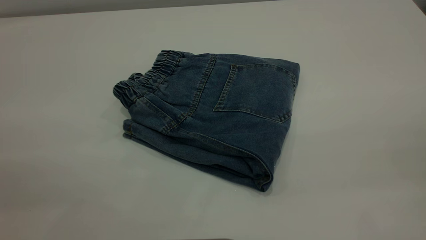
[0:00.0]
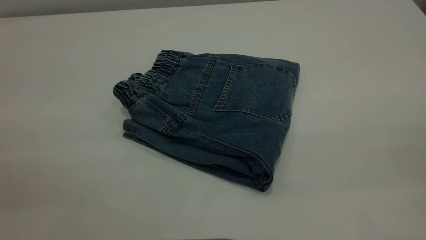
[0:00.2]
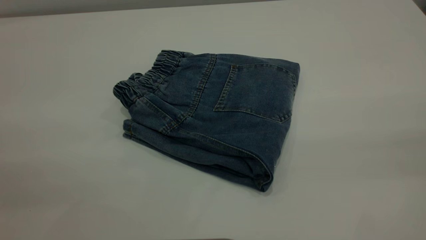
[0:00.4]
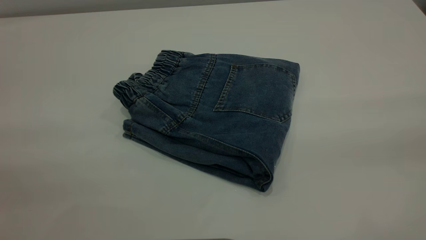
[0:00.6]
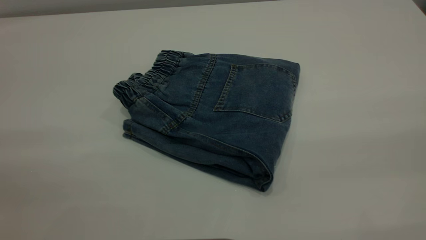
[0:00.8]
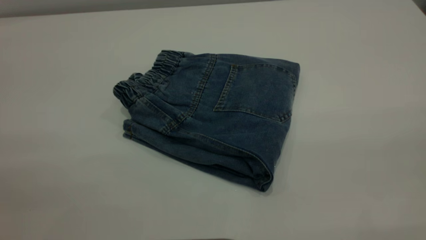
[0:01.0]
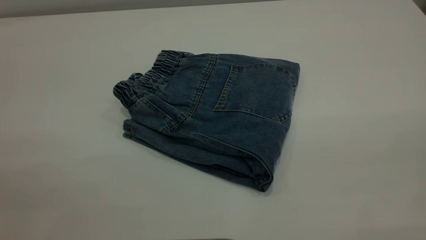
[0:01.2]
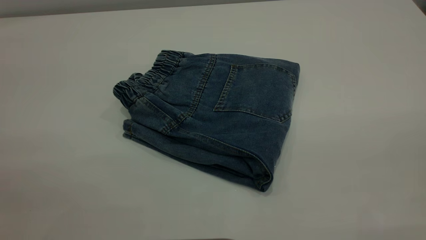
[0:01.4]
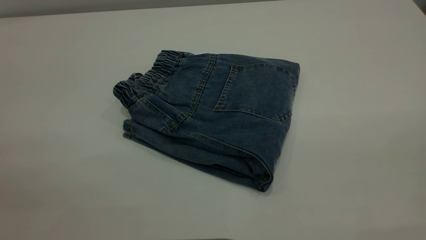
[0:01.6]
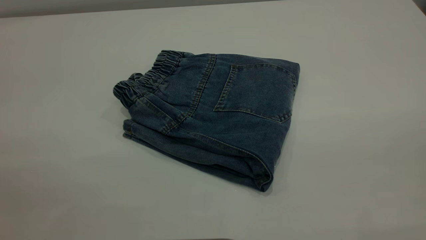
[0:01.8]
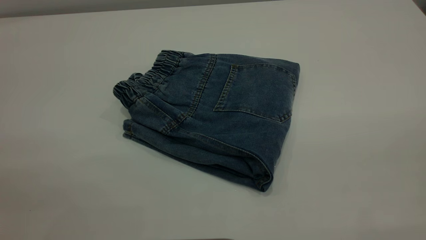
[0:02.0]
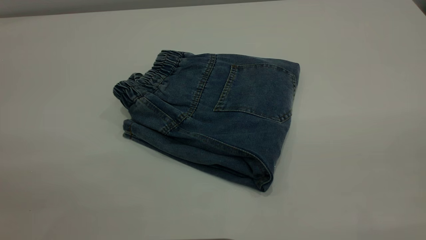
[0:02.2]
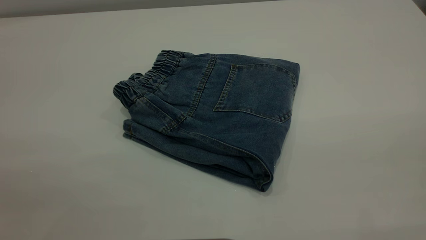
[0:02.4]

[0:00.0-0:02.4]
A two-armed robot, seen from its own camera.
0:01.2 to 0:02.4: The two grippers keep their place.

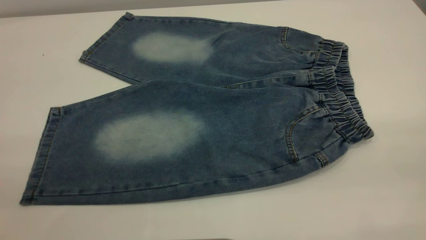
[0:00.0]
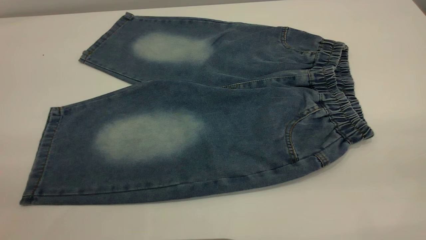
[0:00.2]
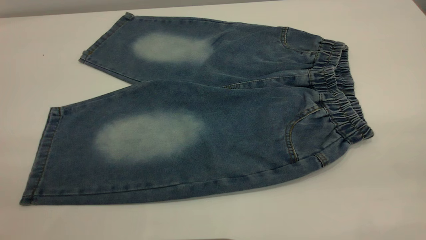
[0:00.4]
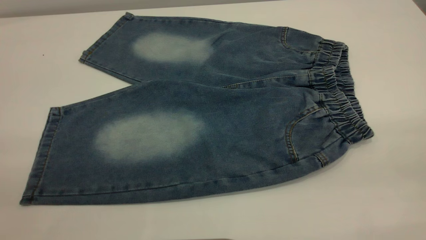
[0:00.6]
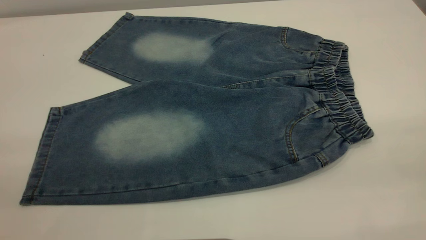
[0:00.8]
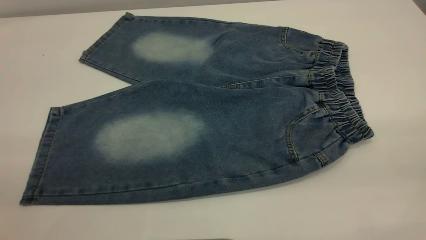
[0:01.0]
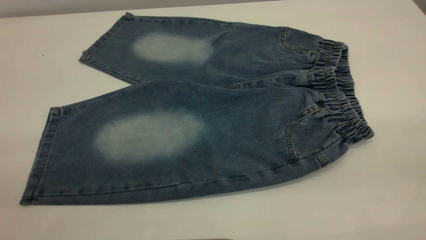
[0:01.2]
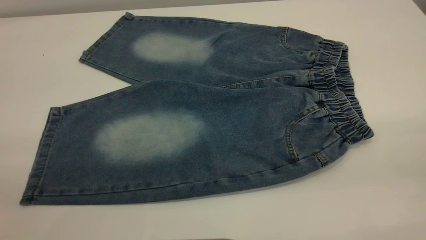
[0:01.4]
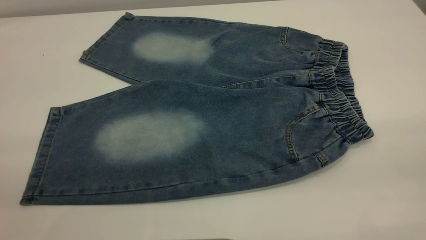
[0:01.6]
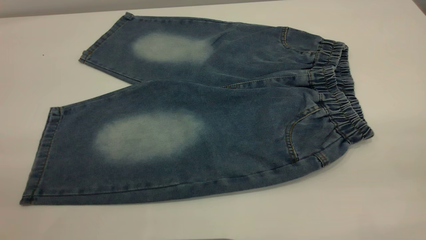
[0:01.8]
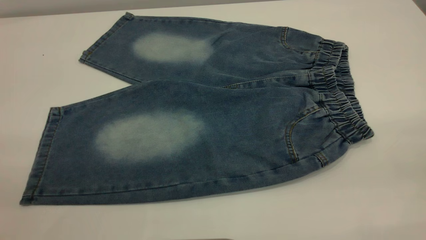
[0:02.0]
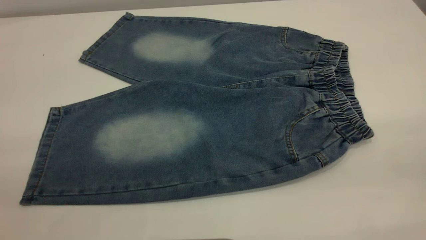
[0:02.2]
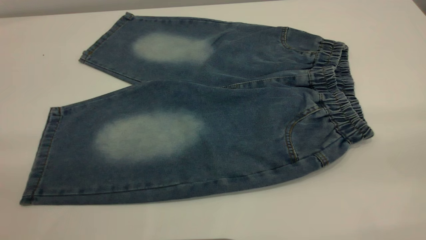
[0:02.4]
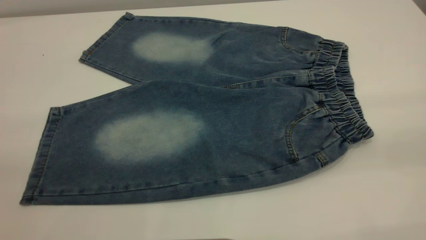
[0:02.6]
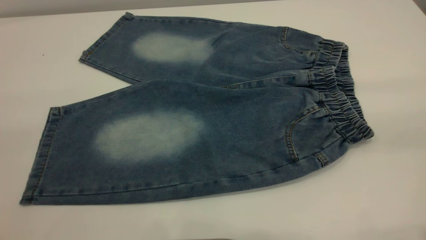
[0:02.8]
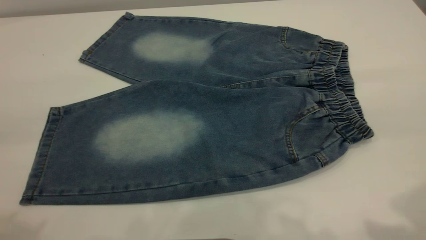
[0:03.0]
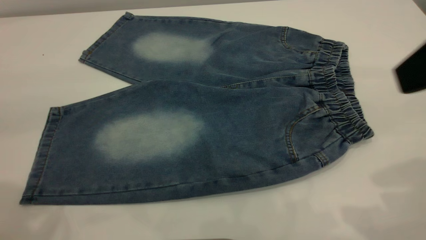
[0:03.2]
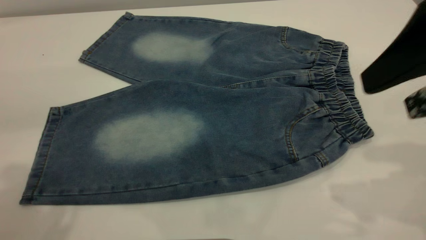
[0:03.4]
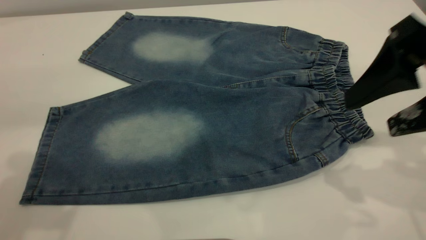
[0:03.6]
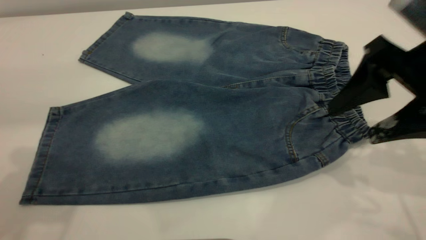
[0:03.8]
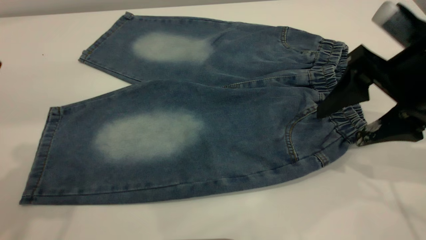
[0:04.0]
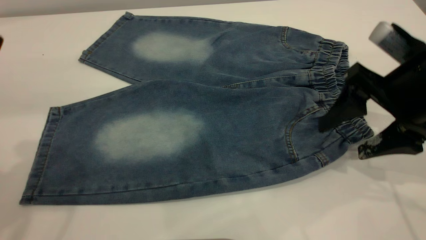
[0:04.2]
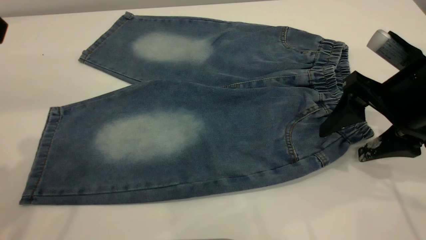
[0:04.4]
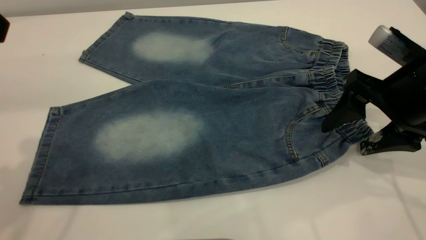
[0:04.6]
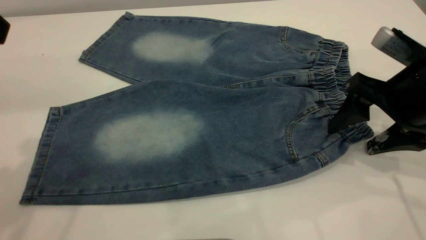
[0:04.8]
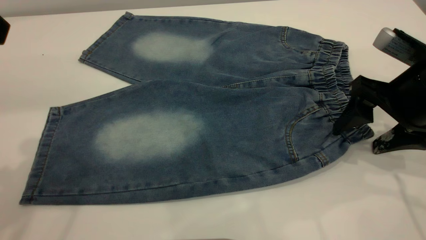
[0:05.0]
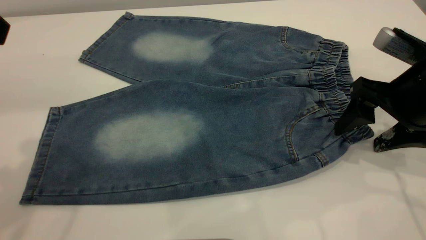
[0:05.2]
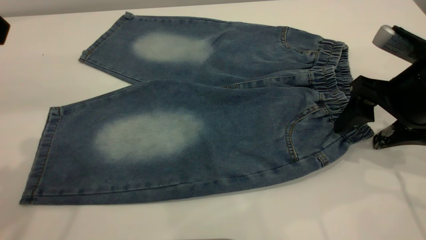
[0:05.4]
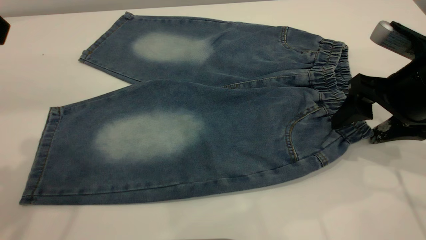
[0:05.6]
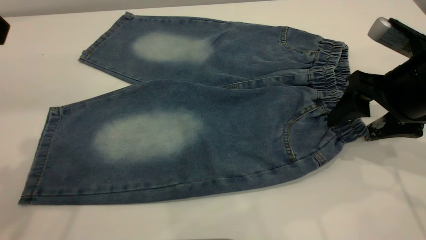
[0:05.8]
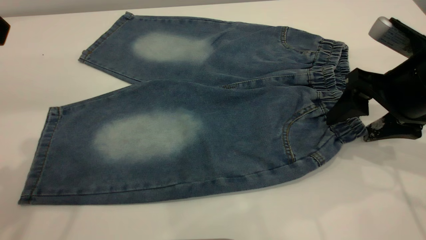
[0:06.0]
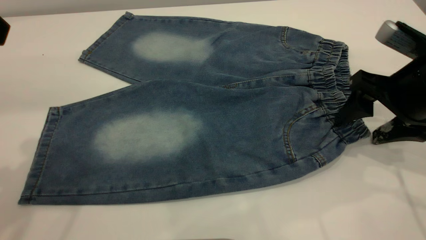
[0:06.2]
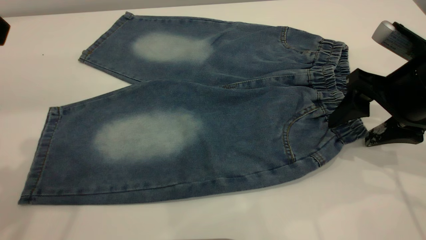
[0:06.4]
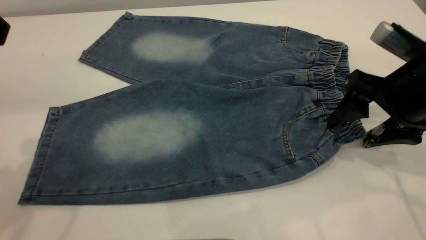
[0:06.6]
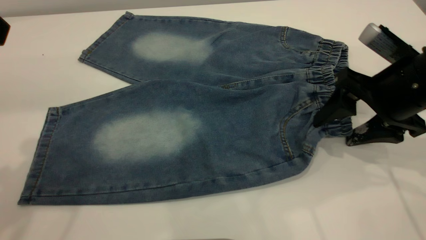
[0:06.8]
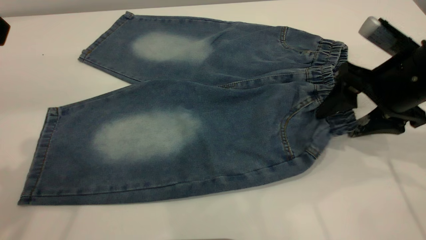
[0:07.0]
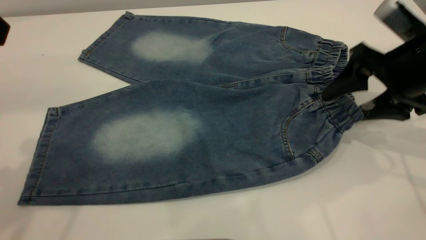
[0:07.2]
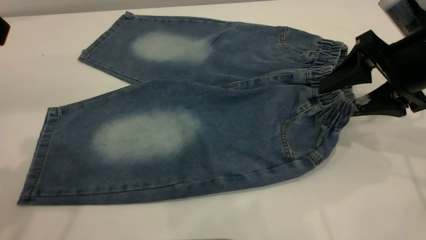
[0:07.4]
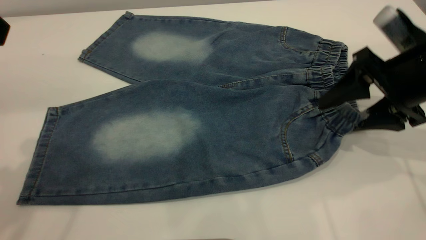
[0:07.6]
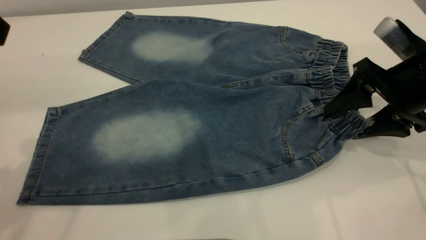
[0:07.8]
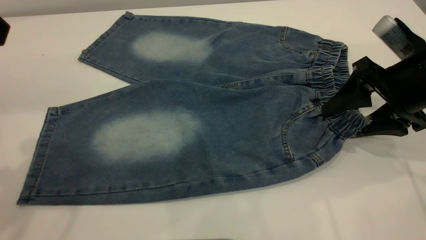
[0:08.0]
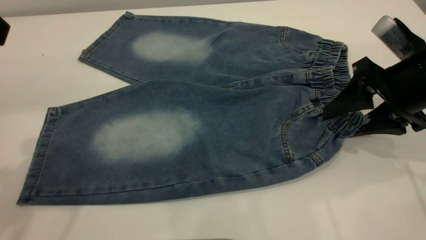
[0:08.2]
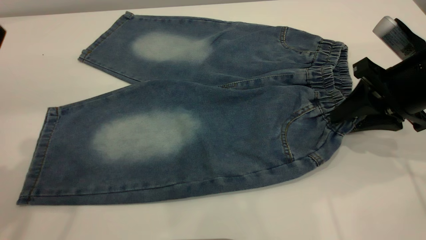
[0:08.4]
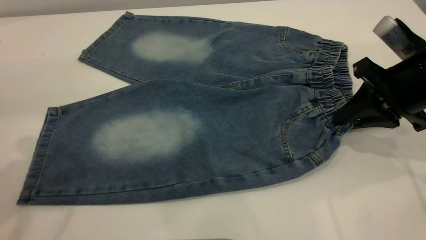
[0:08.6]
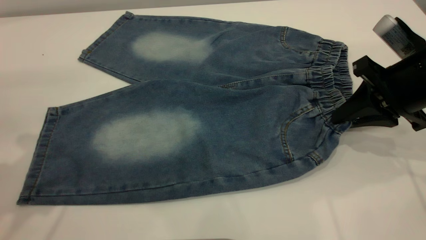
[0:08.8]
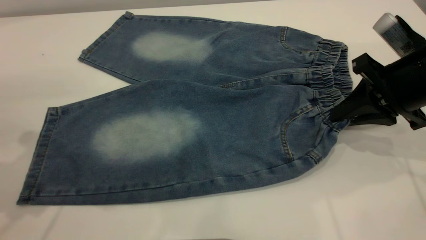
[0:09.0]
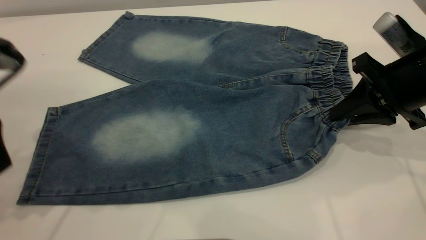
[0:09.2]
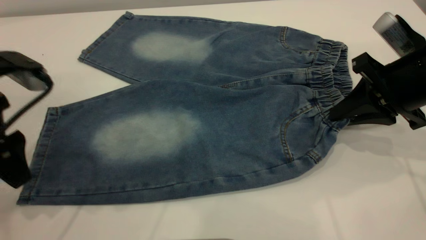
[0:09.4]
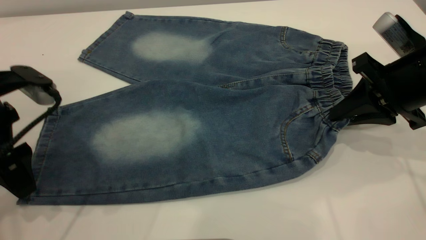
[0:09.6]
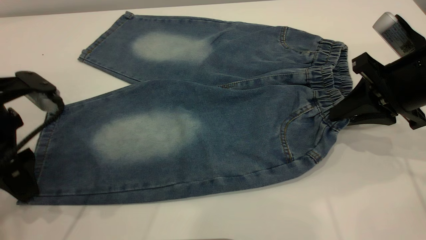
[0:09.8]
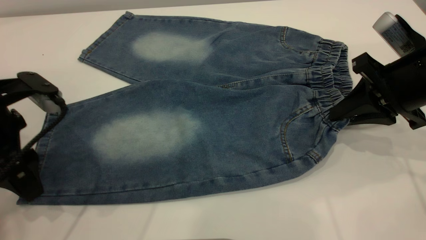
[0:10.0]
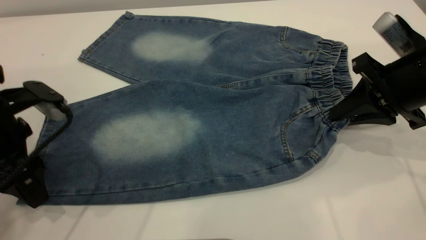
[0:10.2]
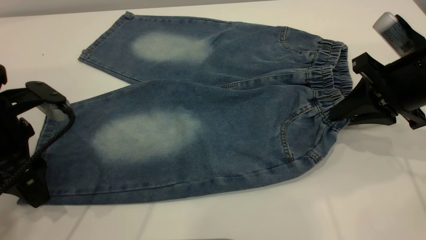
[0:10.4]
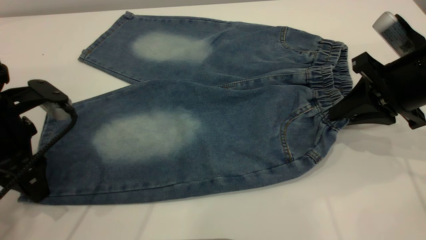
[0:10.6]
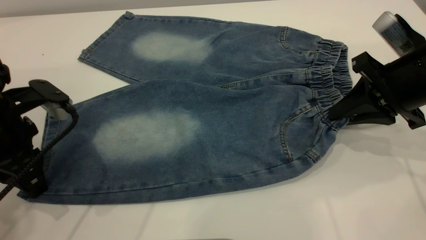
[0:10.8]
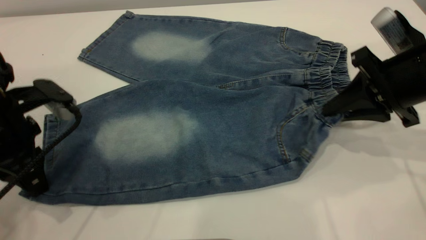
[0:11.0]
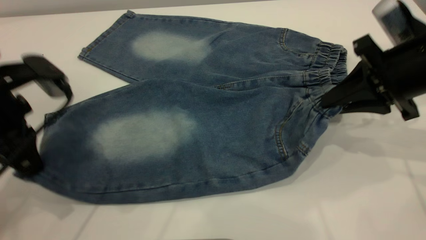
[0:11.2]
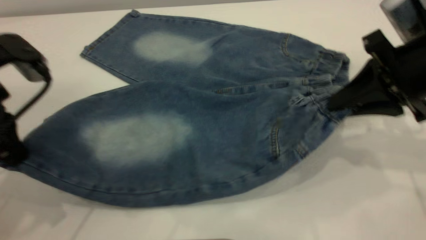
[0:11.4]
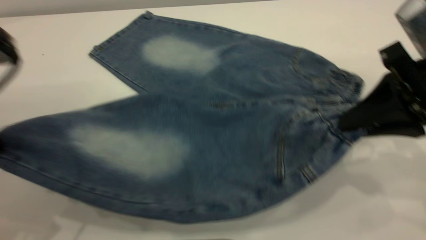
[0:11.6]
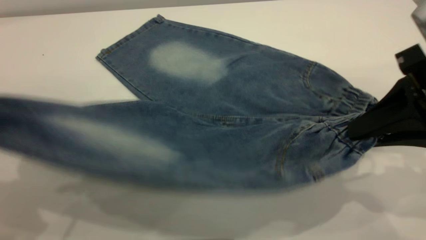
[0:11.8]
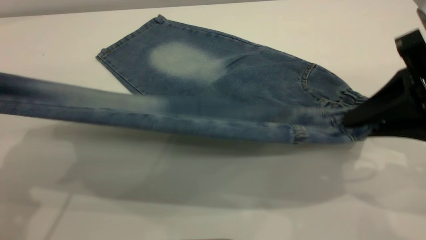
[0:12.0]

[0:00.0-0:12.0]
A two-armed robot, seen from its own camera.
0:00.0 to 0:01.6: The two grippers keep their place.
0:03.0 to 0:04.4: The right gripper moves downward and forward, roughly 20 cm, while the left gripper moves forward, approximately 10 cm.
0:04.4 to 0:07.6: The grippers make only small movements.
0:07.6 to 0:09.0: The right gripper closes its fingers.
0:09.0 to 0:10.4: The left gripper heads downward, covering about 10 cm.
0:10.4 to 0:12.0: The right gripper heads backward and upward, covering about 10 cm; the left gripper moves upward, roughly 15 cm, and closes its fingers.

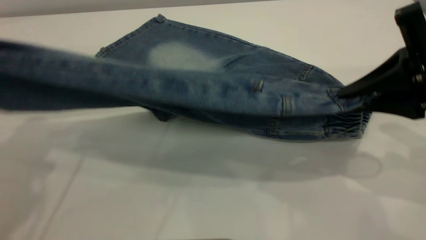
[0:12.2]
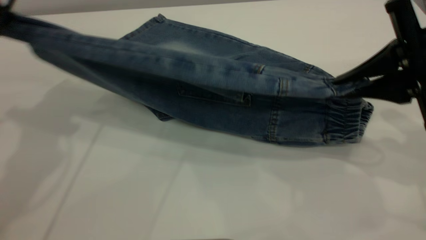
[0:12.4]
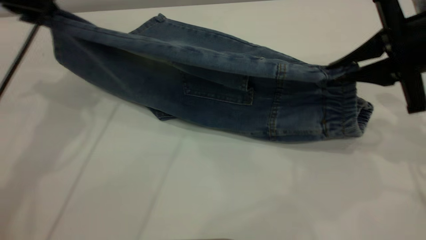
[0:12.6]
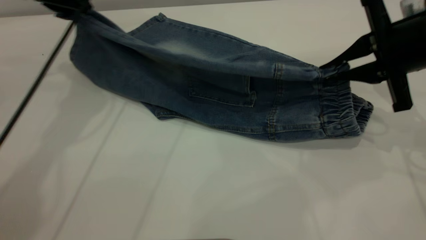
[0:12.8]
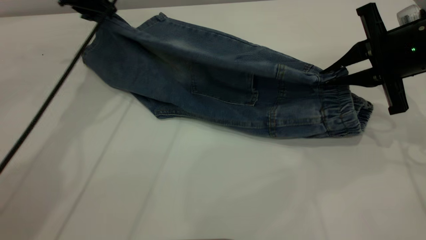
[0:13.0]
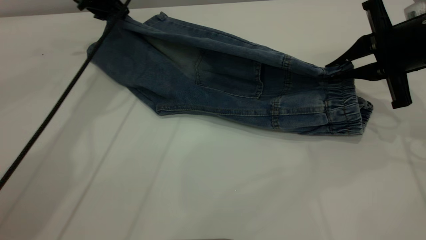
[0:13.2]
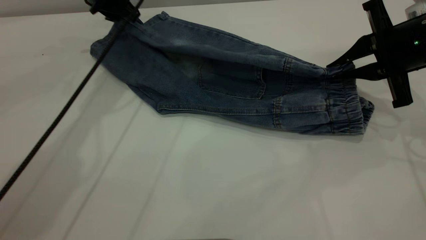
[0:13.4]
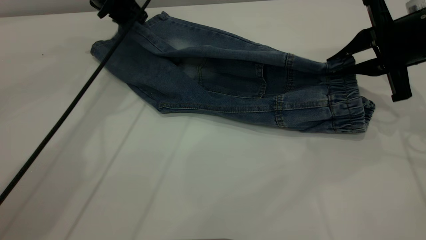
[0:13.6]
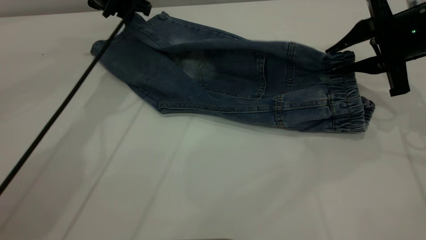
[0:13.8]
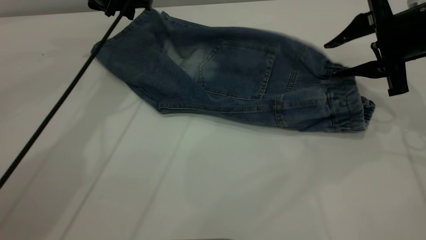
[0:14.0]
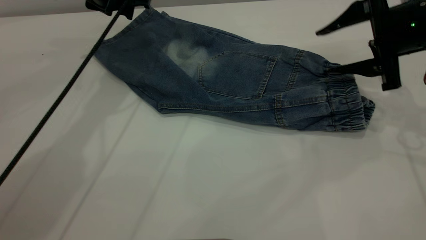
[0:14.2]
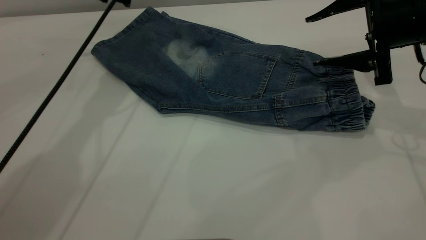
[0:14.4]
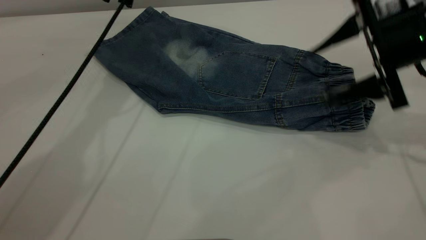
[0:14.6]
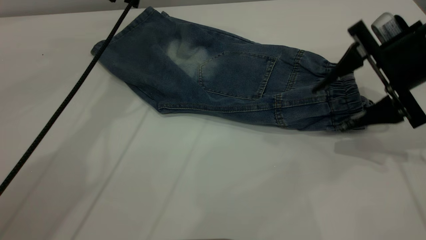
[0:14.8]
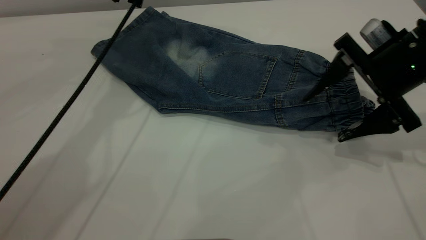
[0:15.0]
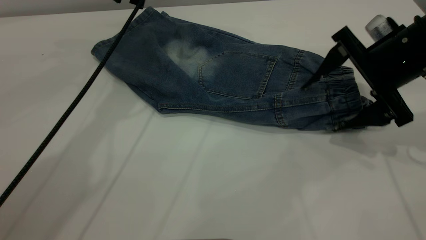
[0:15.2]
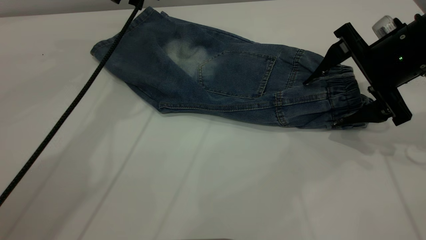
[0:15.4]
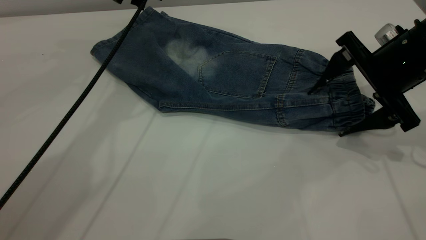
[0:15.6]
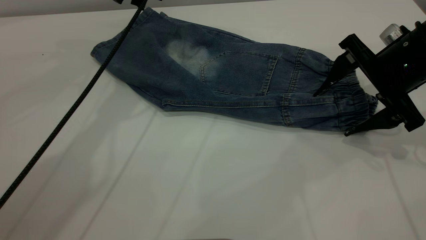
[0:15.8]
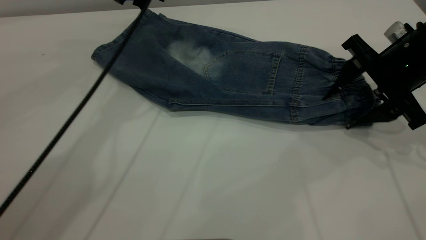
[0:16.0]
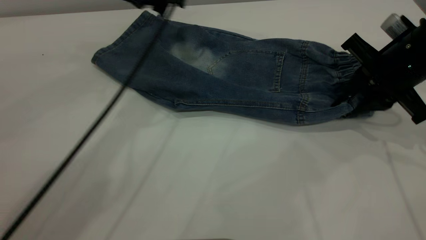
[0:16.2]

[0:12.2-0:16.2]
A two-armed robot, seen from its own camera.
Step, 0:12.2 to 0:14.2: Fold the bottom of the pants upward.
0:12.2 to 0:13.6: The right gripper is displaced forward by some 10 cm. Meanwhile the left gripper shifts about 25 cm forward, to the right and downward, and opens its fingers.
0:13.6 to 0:14.8: The right gripper opens its fingers.
0:14.8 to 0:16.2: The right gripper closes its fingers. The left gripper is displaced to the right by about 5 cm.
